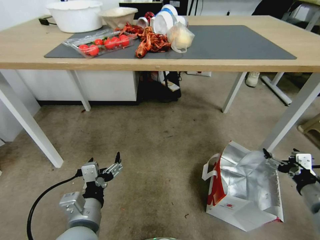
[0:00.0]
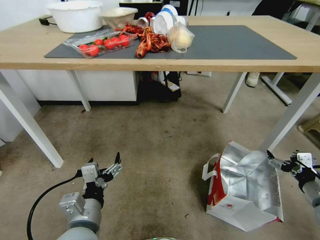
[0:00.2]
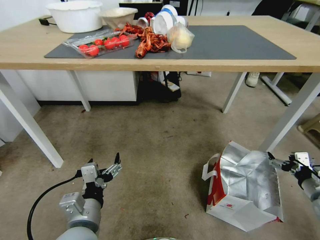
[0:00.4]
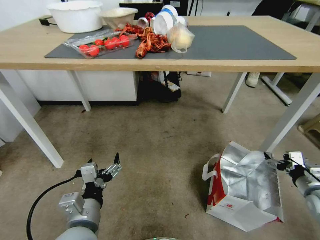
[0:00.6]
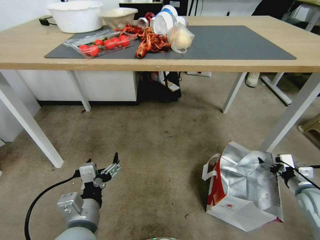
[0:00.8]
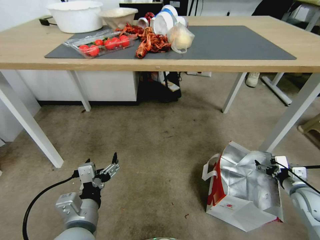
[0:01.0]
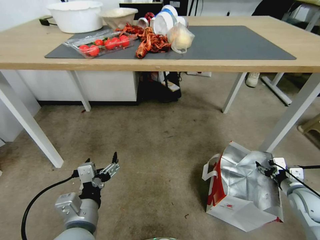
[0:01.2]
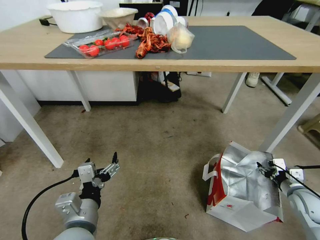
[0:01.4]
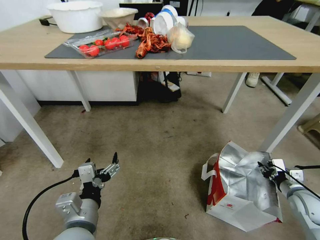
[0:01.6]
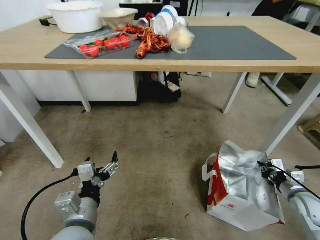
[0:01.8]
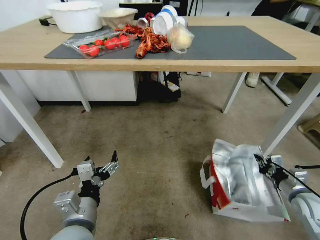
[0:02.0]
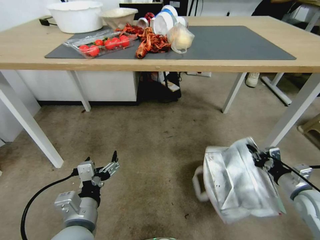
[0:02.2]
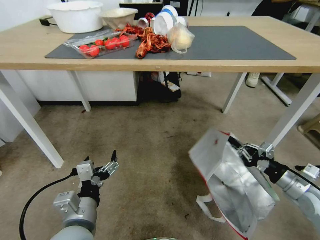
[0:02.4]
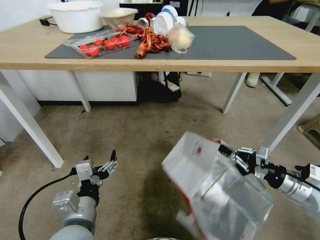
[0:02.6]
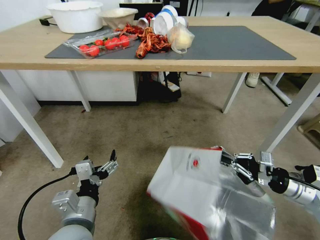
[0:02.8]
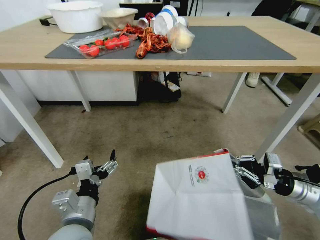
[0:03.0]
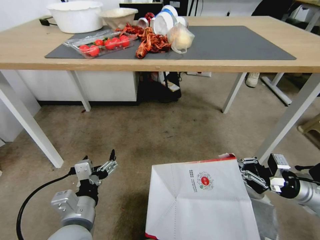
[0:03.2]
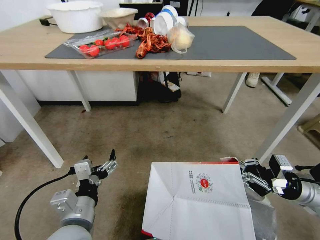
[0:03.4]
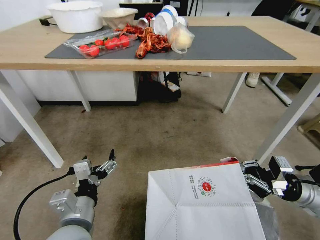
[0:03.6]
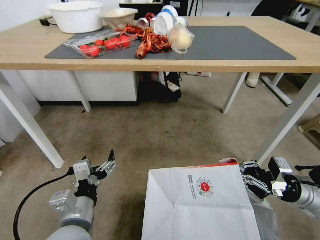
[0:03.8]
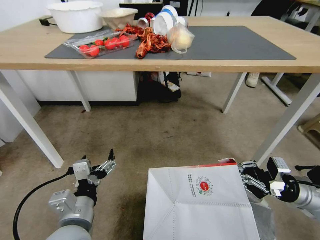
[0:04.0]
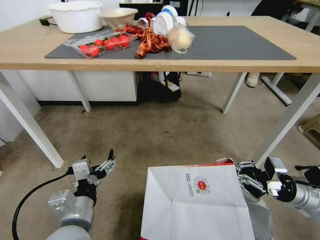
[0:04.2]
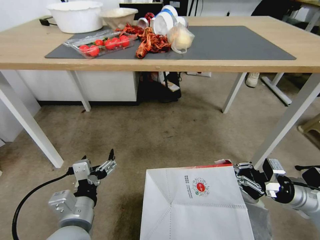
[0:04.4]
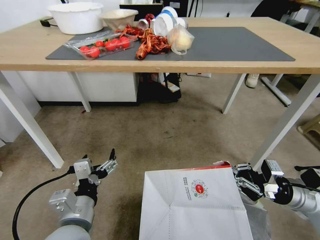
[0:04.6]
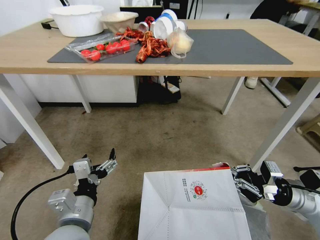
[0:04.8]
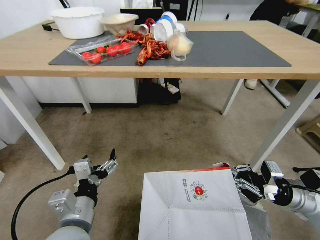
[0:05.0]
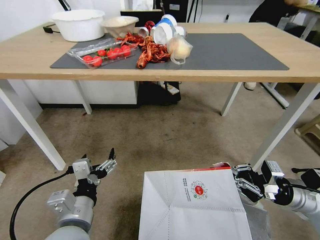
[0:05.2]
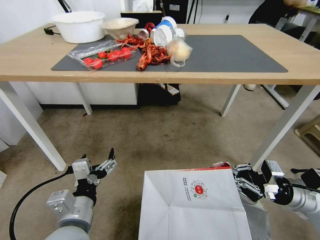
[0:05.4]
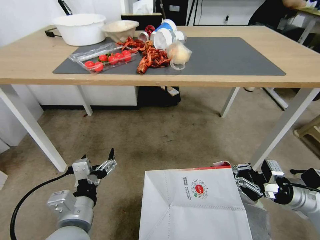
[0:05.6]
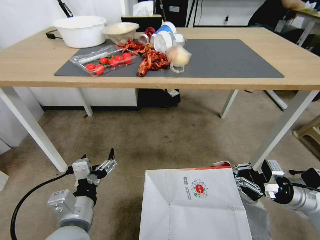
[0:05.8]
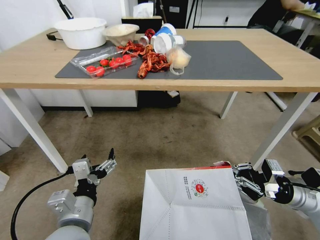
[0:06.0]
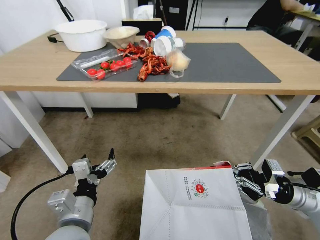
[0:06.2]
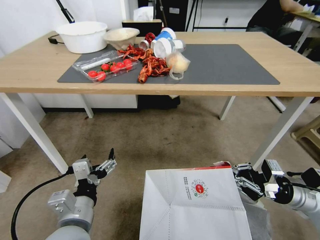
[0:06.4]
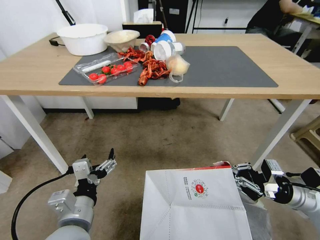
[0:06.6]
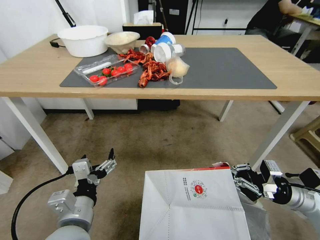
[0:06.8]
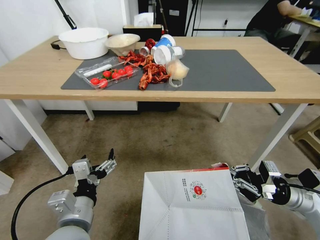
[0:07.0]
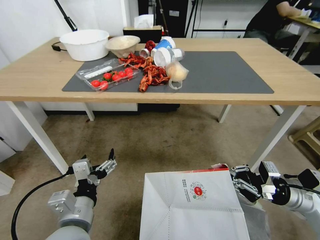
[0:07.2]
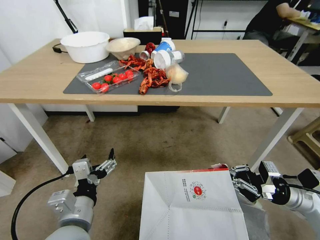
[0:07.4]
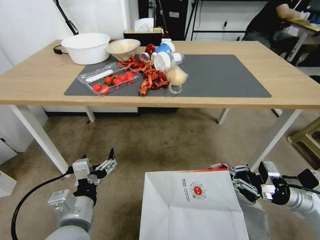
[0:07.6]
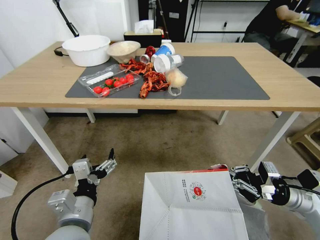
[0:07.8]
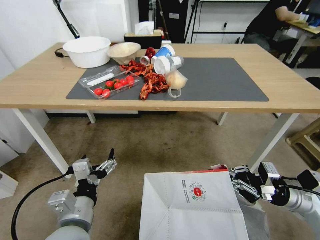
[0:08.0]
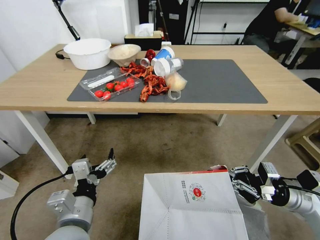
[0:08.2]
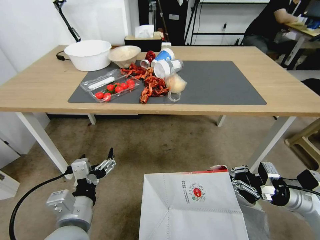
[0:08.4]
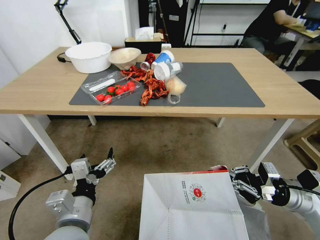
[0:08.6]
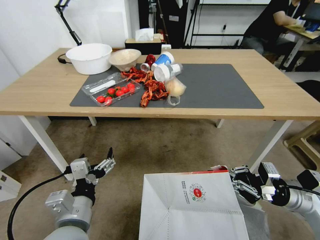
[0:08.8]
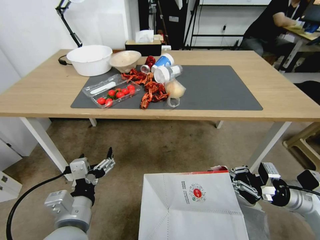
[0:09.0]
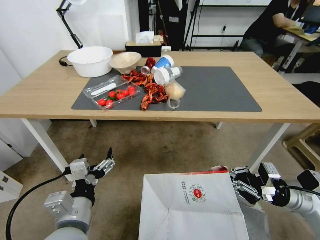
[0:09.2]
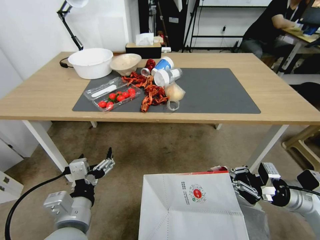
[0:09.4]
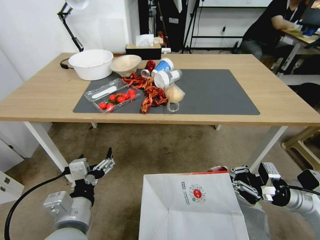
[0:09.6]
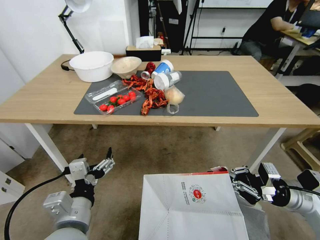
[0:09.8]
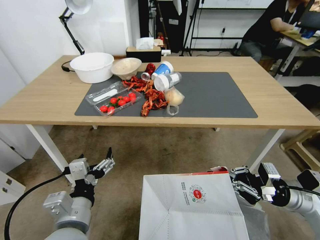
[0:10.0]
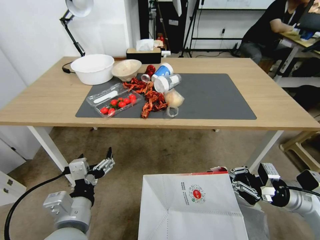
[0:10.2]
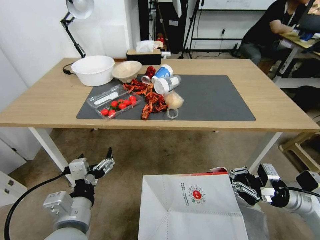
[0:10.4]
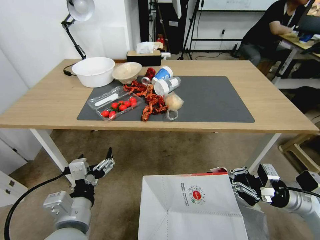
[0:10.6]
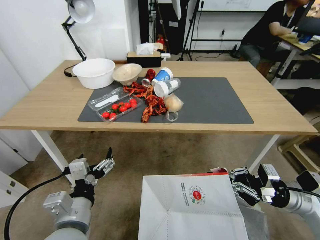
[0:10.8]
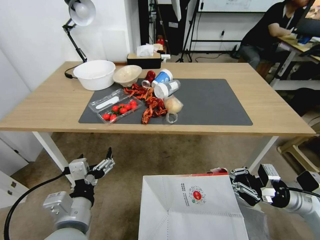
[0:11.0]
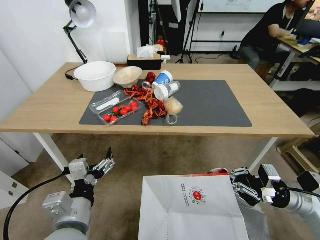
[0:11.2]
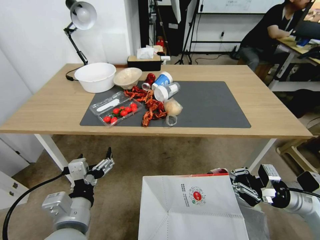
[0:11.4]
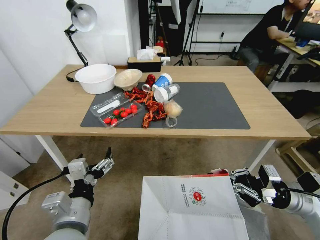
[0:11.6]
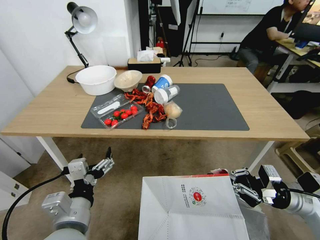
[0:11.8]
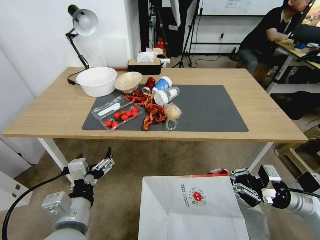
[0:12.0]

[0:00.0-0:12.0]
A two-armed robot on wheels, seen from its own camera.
Task of the whole recording: Pick up the food delivery bag from the floor and place it on the table.
0:00.0 to 0:01.6: The right gripper shifts approximately 15 cm downward, forward and to the right, and closes up.
0:01.6 to 0:03.0: The right gripper moves upward, approximately 10 cm.
0:03.0 to 0:04.4: The grippers stay close to where they were, moving slightly.

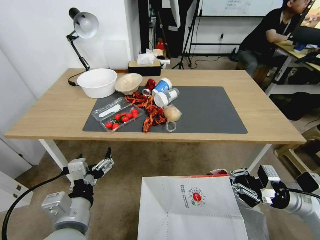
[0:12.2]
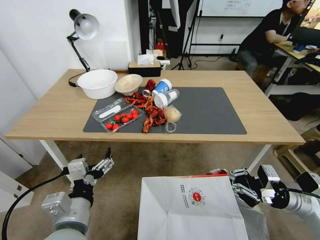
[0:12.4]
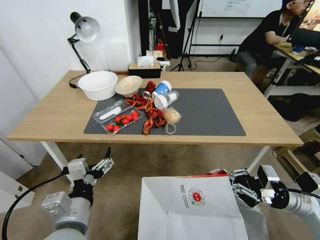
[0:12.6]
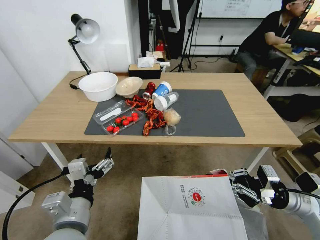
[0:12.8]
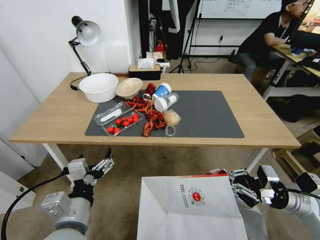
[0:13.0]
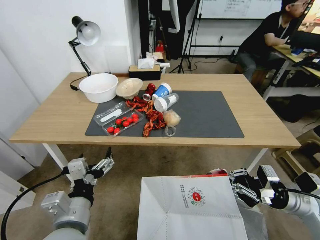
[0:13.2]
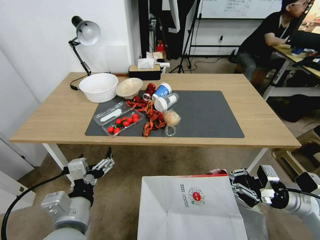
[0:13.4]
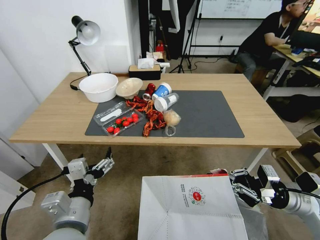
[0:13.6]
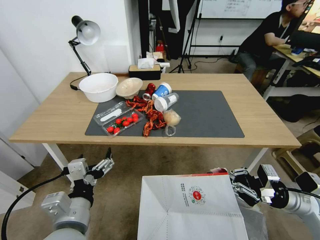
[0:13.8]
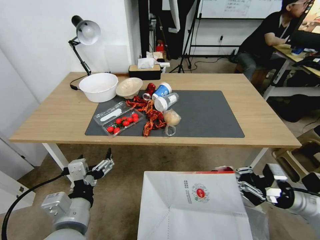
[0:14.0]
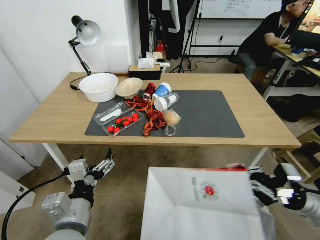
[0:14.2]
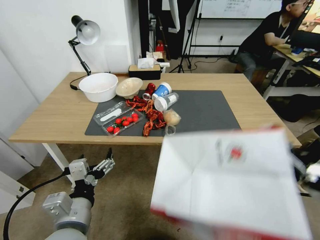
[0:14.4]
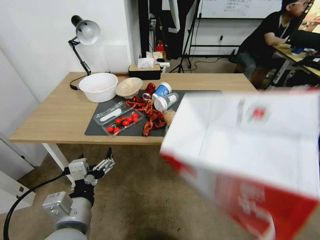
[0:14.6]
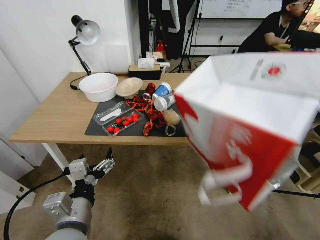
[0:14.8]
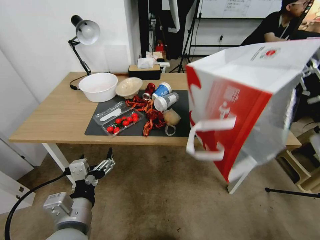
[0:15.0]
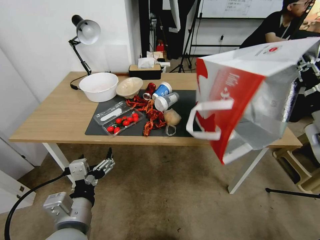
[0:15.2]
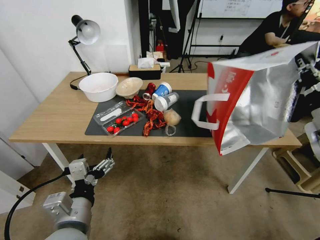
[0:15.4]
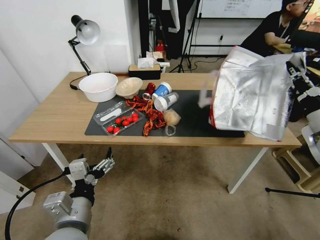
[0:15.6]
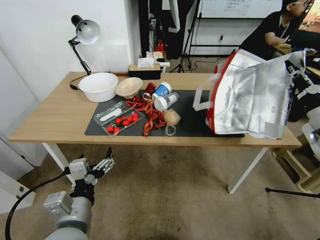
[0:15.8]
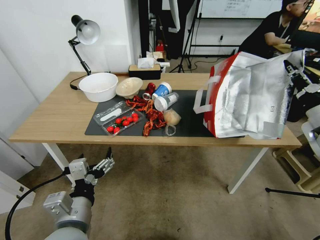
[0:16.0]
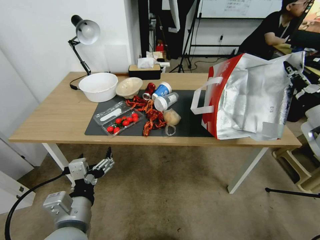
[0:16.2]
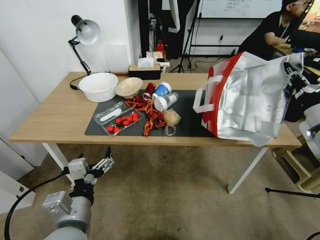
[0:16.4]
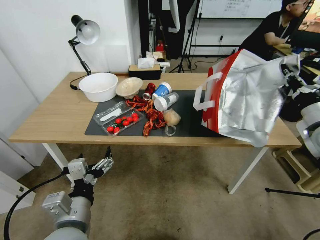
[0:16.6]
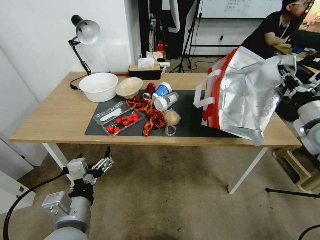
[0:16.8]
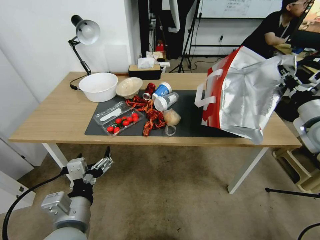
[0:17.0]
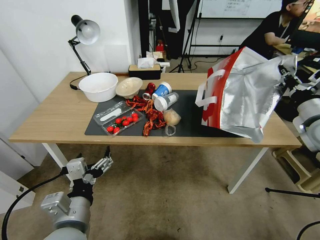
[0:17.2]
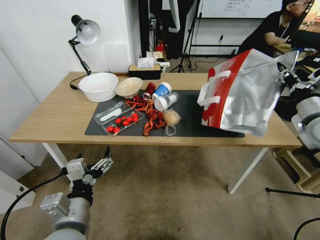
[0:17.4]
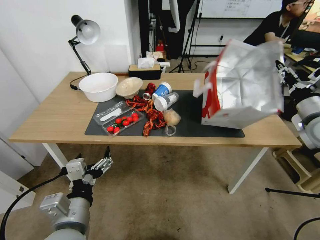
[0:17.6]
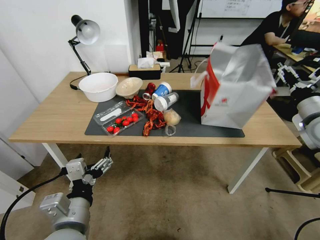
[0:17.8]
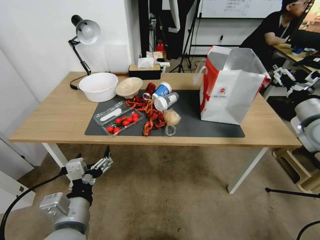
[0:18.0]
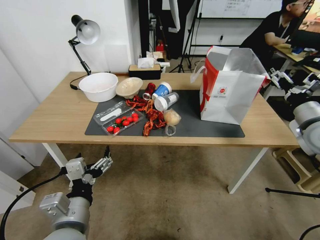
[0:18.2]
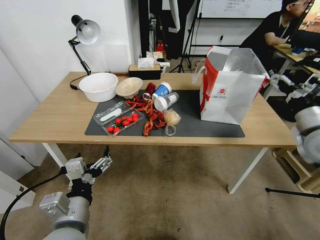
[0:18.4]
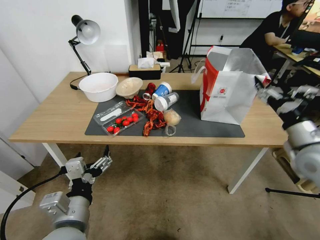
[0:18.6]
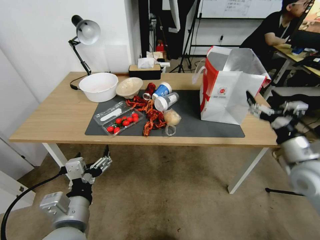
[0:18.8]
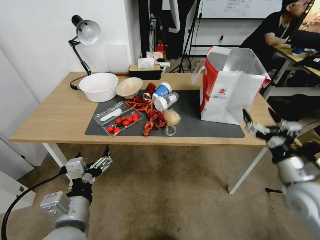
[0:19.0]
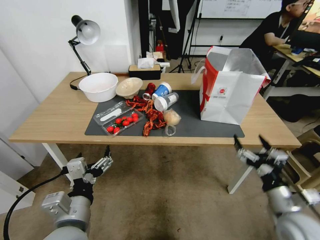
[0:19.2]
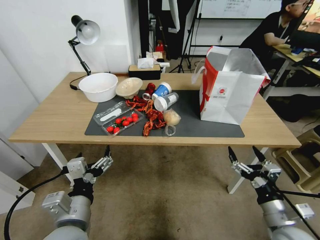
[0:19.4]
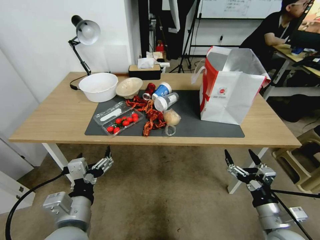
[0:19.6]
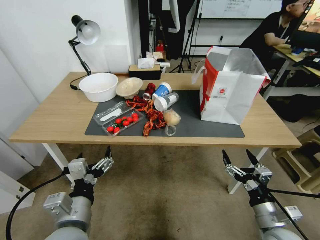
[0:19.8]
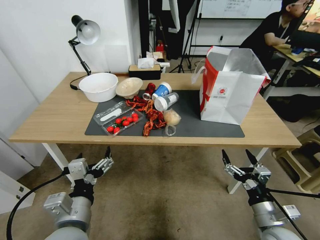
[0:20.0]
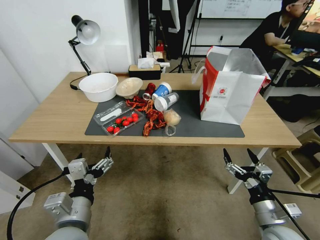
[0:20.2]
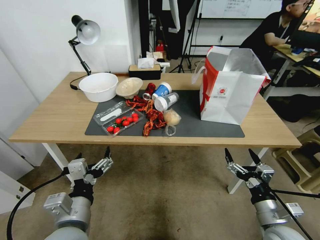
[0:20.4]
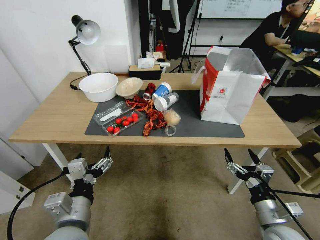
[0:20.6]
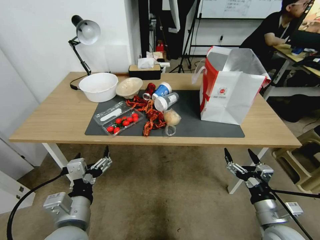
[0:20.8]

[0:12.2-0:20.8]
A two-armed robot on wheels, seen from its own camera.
Task of the whole recording: Pick up the food delivery bag from the floor and place it on the table.
0:12.2 to 0:13.6: Both grippers stay about where they are.
0:13.6 to 0:15.0: The right gripper heads upward, covering roughly 15 cm.
0:15.0 to 0:16.6: The right gripper heads forward, covering about 5 cm.
0:16.6 to 0:18.0: The right gripper opens its fingers.
0:18.0 to 0:19.4: The right gripper shifts some 30 cm backward, downward and to the left.
0:19.4 to 0:20.8: The grippers make only small movements.

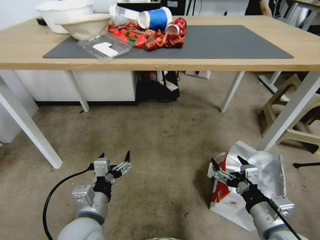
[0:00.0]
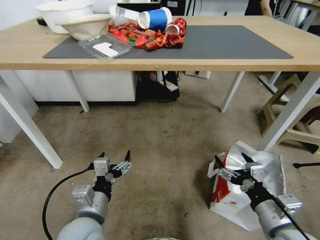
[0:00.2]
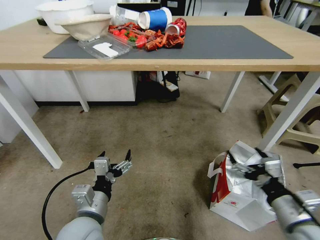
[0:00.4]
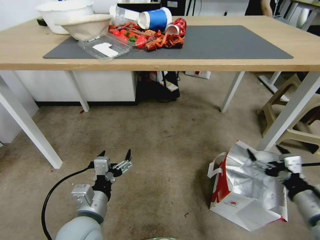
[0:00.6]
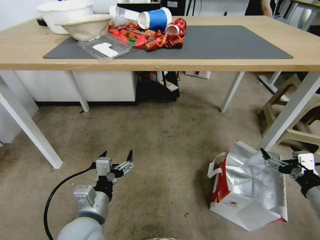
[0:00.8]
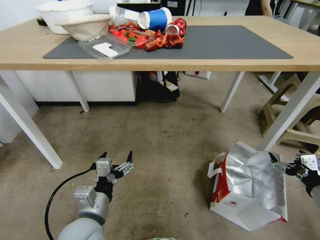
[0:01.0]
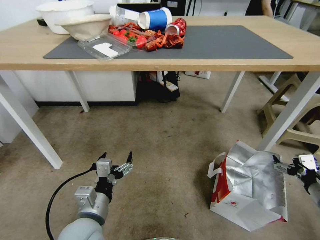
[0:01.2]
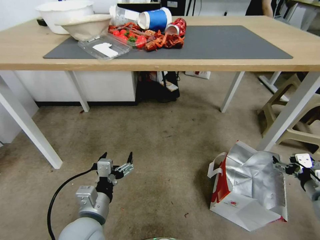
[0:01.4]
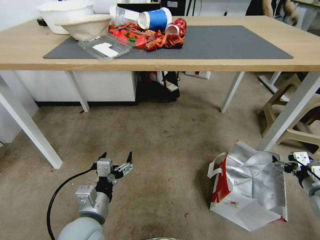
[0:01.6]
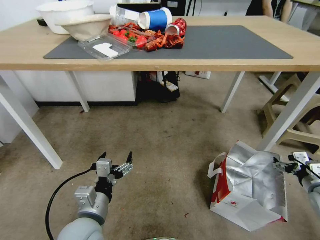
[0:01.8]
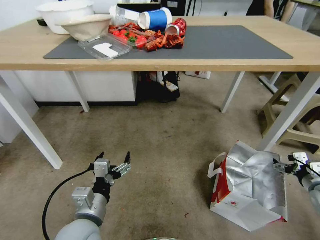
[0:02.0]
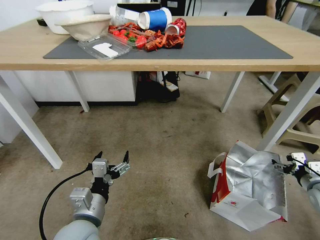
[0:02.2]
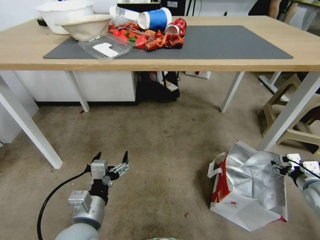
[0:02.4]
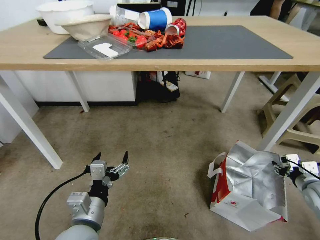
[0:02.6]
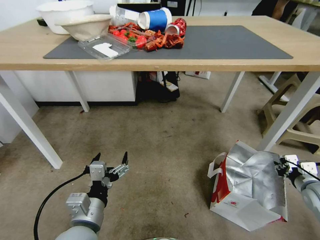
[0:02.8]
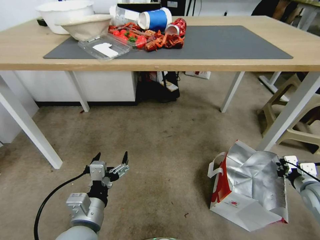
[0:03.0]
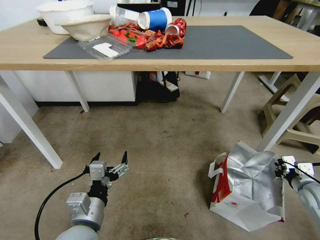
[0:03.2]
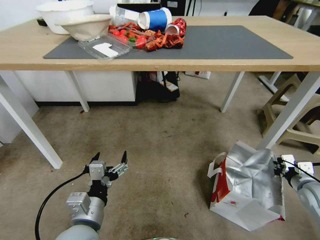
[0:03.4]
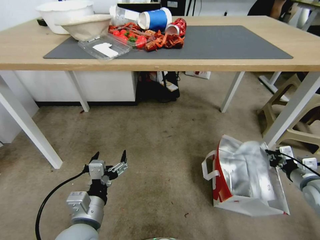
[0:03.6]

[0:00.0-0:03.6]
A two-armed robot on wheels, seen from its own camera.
Task of the whole recording: Pick up the food delivery bag from the floor and place it on the table.
0:00.0 to 0:01.8: The right gripper moves to the right and forward, approximately 25 cm.
0:01.8 to 0:03.6: The right gripper closes its fingers.
